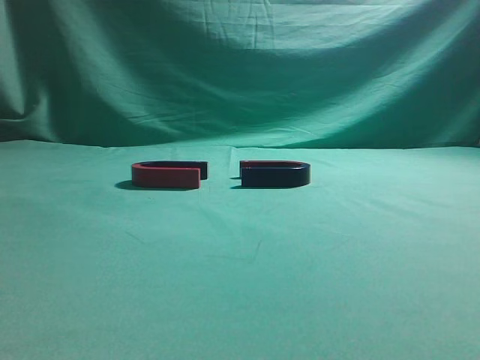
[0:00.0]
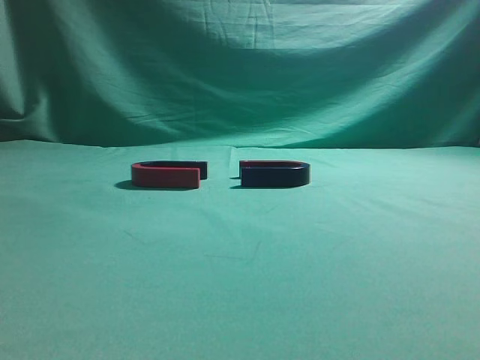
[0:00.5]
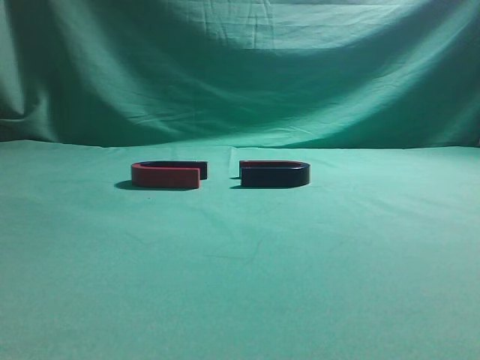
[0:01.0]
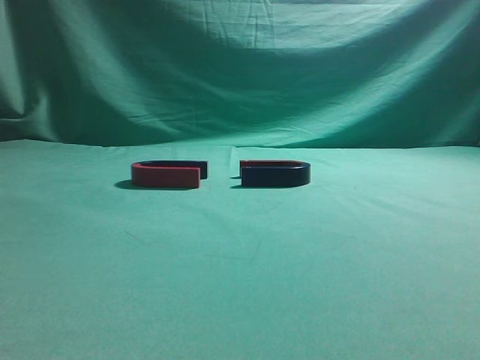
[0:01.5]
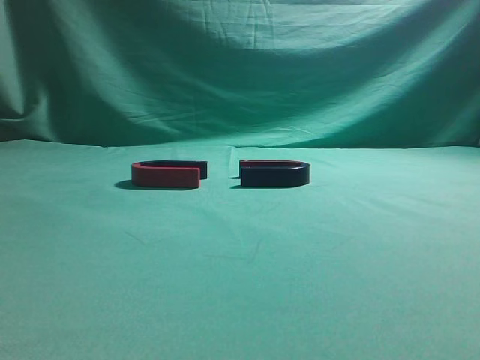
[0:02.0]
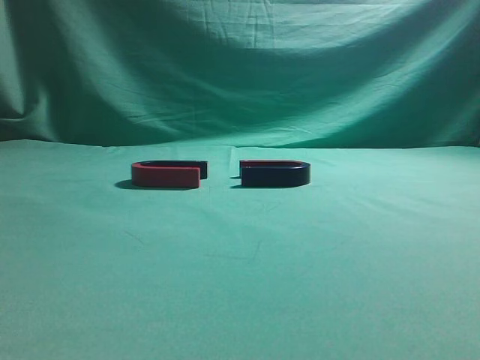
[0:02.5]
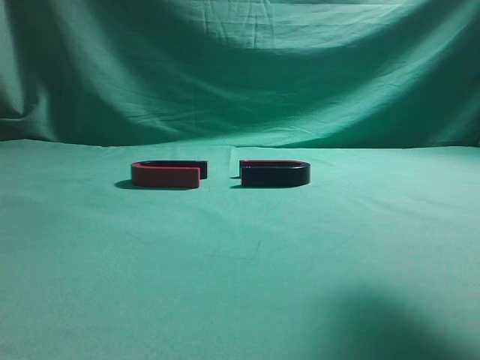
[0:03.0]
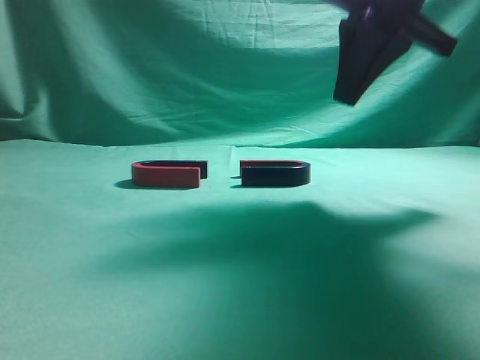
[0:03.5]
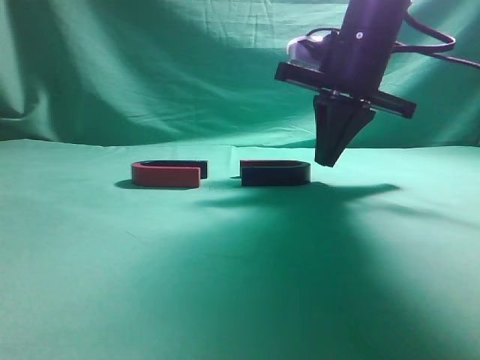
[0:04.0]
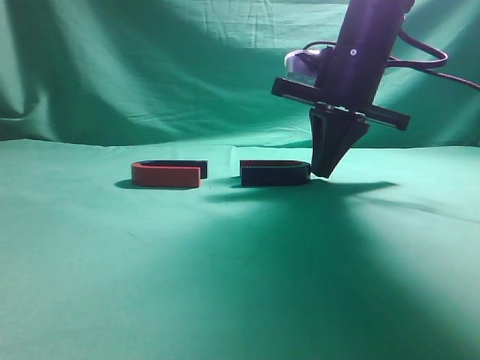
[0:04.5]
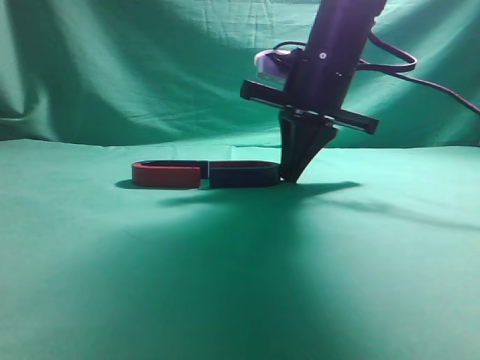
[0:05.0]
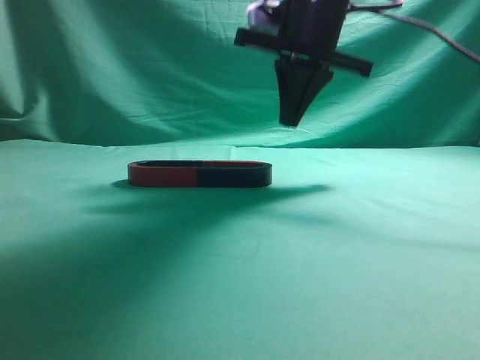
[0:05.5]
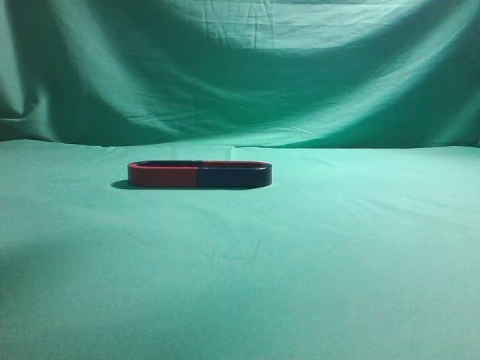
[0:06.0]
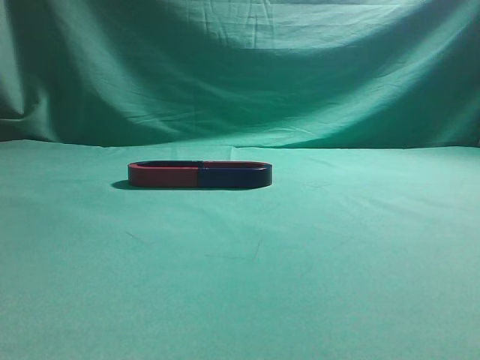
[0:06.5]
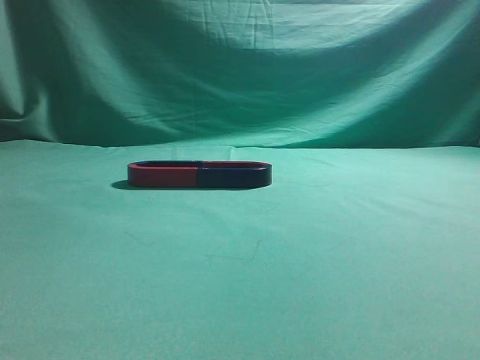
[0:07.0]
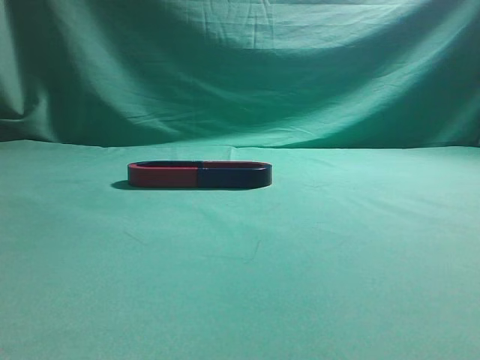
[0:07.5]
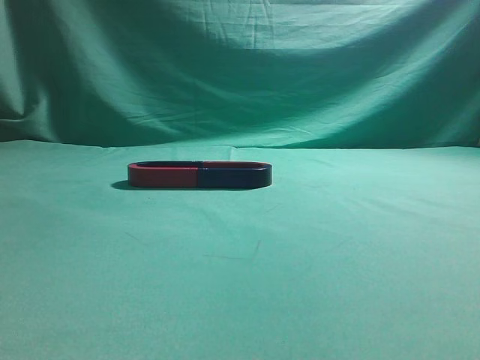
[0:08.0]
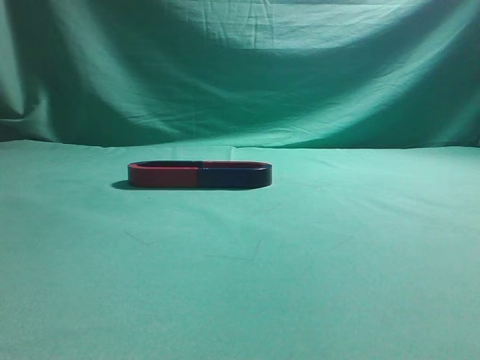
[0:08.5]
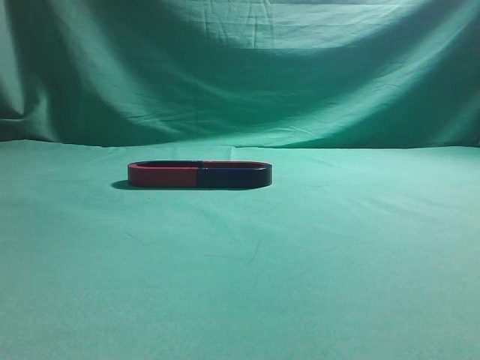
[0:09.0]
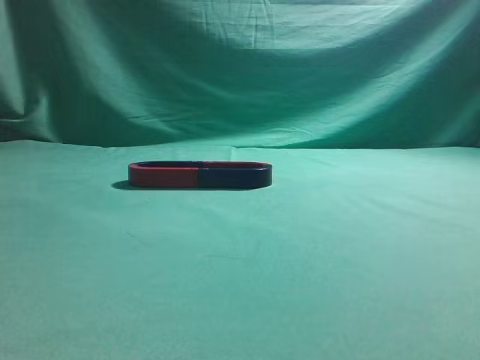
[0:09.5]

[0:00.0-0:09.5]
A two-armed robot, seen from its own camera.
Task of the whole recording: push the magnet on the table from its original position to another position.
Step, 0:00.0 to 0:05.0: Push the magnet on the right to connect the magnet on the left.
0:02.0 to 0:04.0: The right gripper moves forward and to the left, about 35 cm.
0:04.0 to 0:05.5: The right gripper moves about 5 cm.
0:05.5 to 0:07.5: The right gripper goes some 40 cm backward and to the right.
